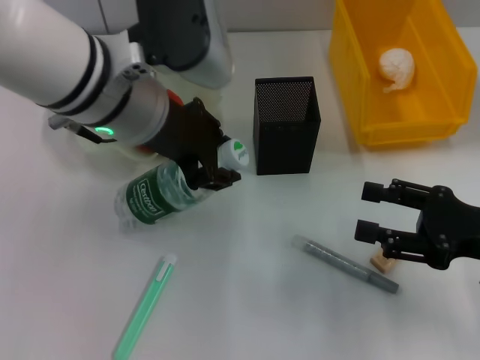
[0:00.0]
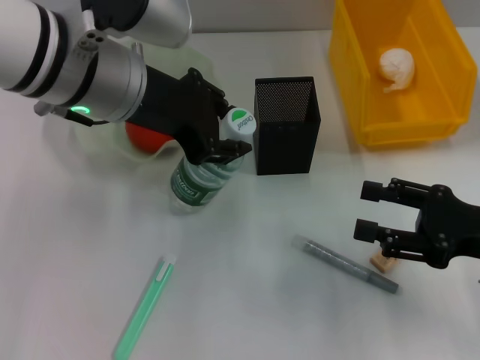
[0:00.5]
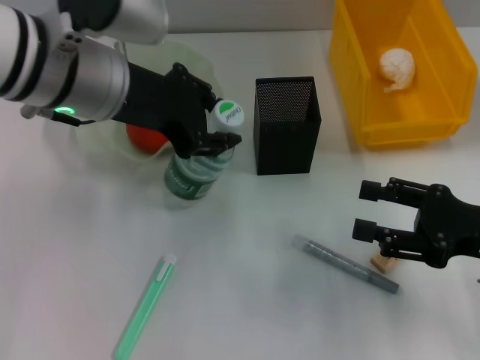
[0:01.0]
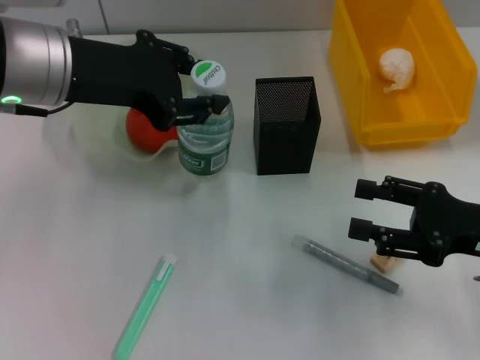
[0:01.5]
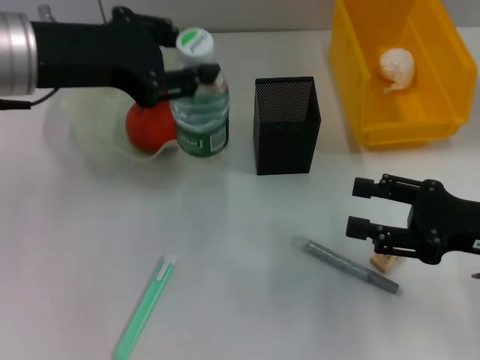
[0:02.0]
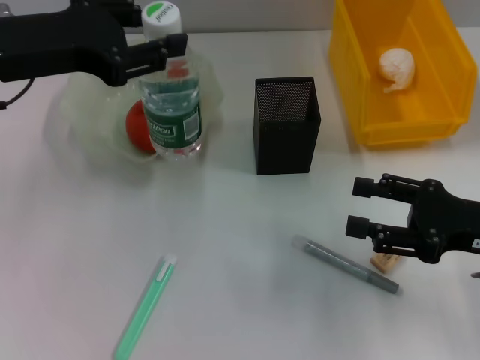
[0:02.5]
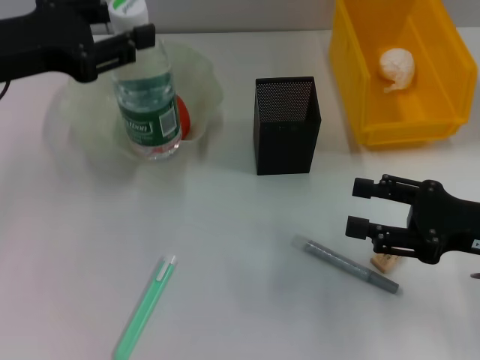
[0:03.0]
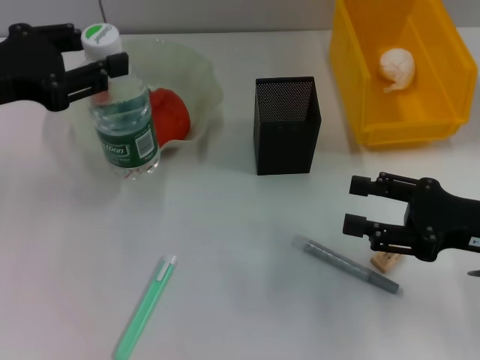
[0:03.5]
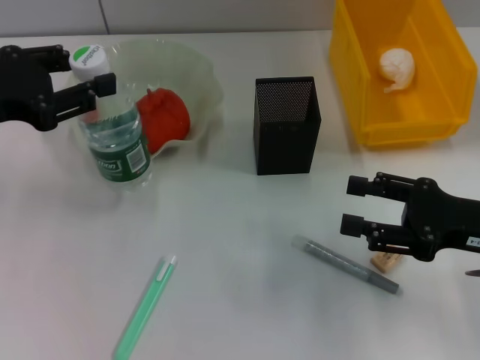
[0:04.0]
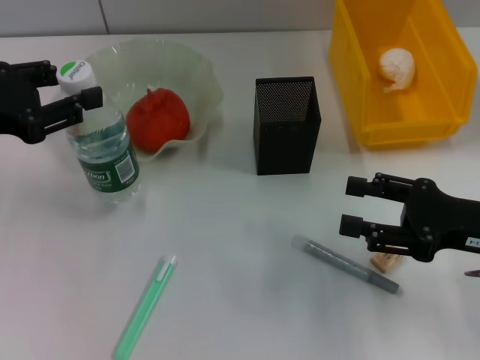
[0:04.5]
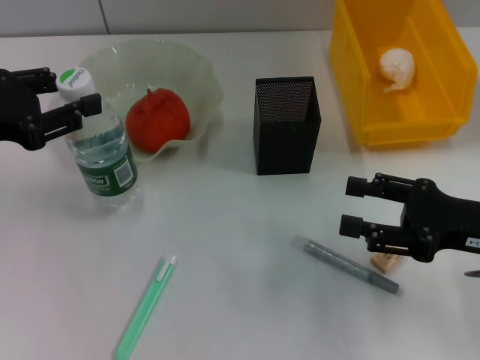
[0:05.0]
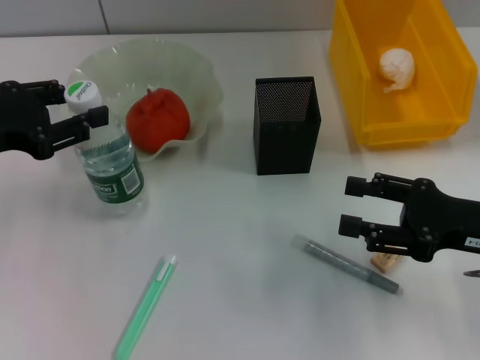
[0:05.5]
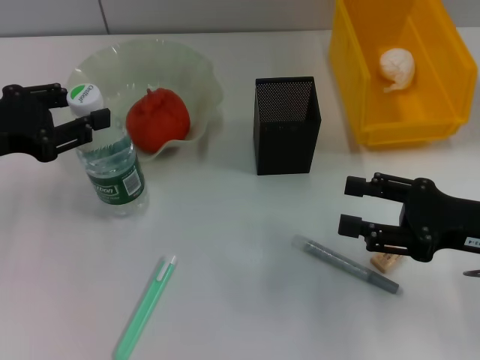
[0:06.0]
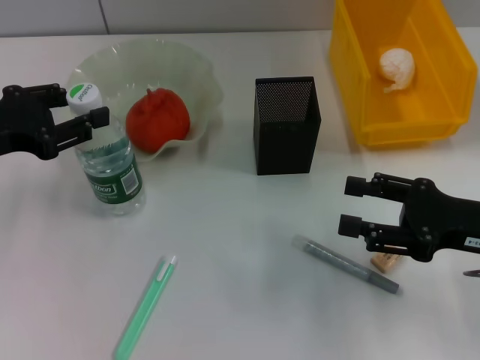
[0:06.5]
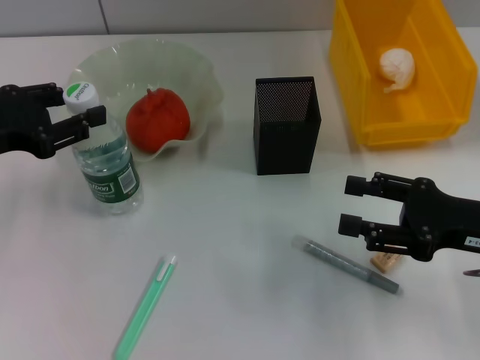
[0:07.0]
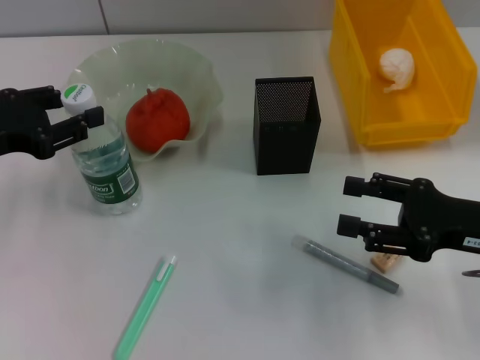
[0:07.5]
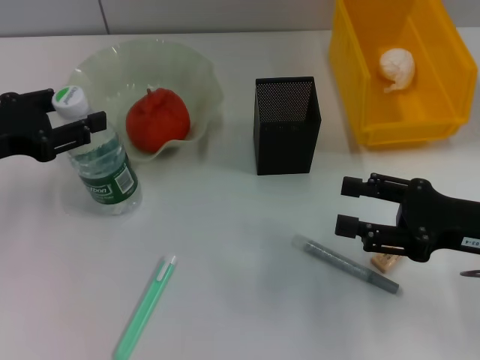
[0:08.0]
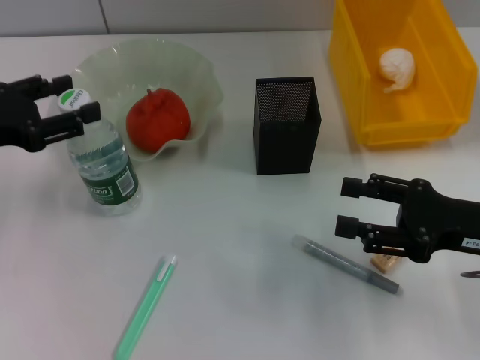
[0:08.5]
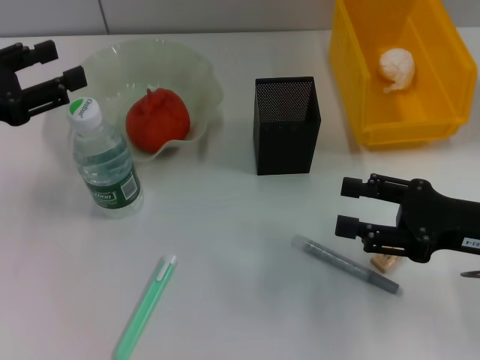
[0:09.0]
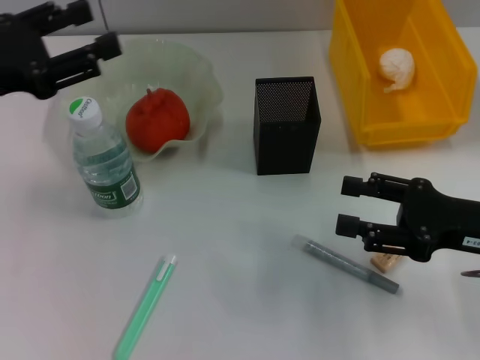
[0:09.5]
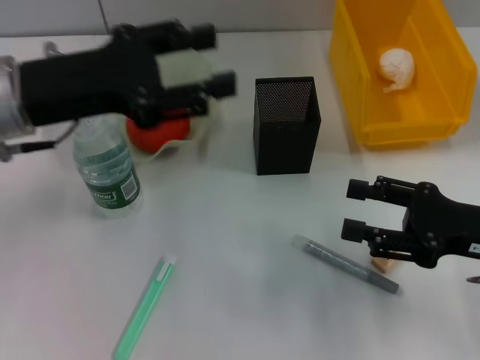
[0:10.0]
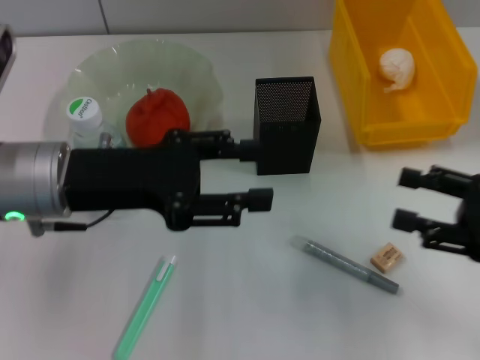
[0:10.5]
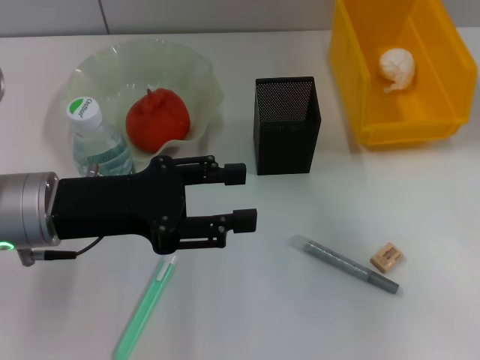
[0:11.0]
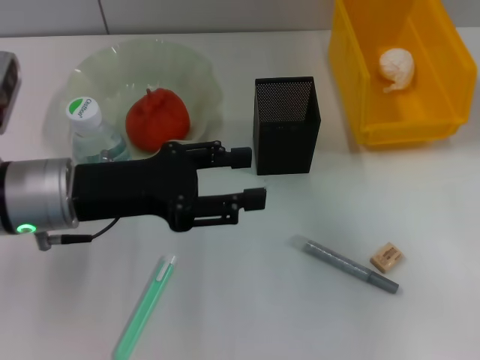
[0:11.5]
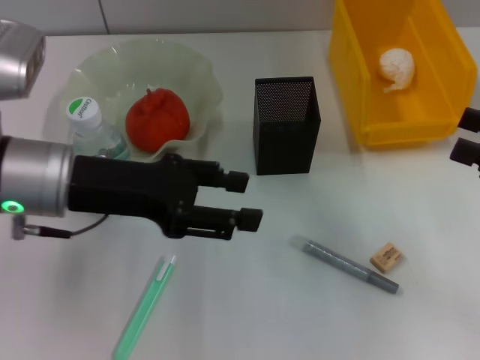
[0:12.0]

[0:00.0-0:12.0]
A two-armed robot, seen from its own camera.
Step, 0.0 to 8.5 s: Place the water bottle on the table with the left hand.
0.0 to 2.0 s: The left gripper travels to the left by about 10 cm.
2.0 to 4.0 s: The left gripper heads to the left, covering roughly 10 cm.
4.0 to 6.0 s: There are only small adjustments of the grippers.
6.0 to 8.0 s: Both grippers stay about where they are.
8.0 to 10.0 s: The left gripper heads to the right and upward, covering roughly 10 cm.
10.0 to 12.0 s: The right gripper shifts about 10 cm to the right and upward.

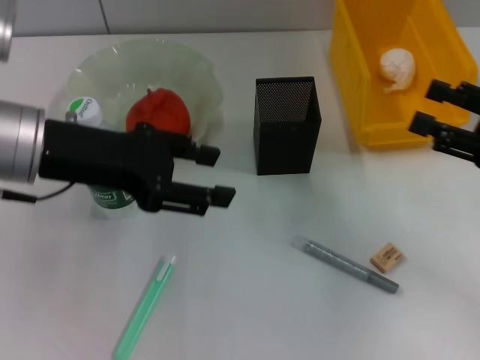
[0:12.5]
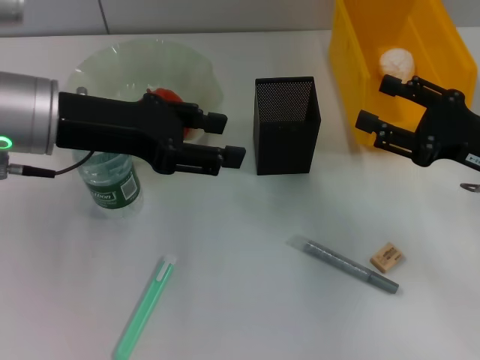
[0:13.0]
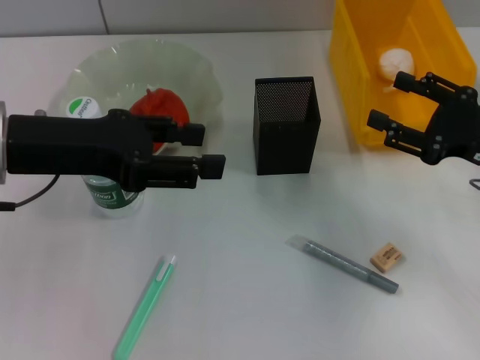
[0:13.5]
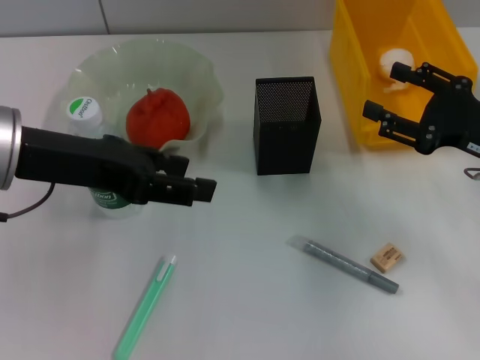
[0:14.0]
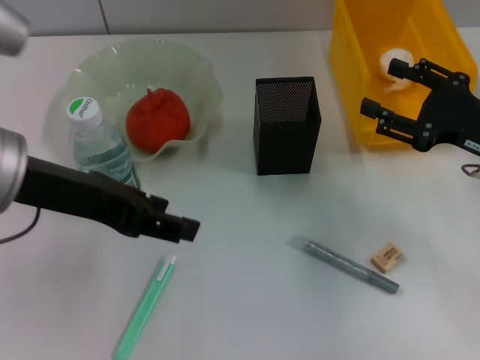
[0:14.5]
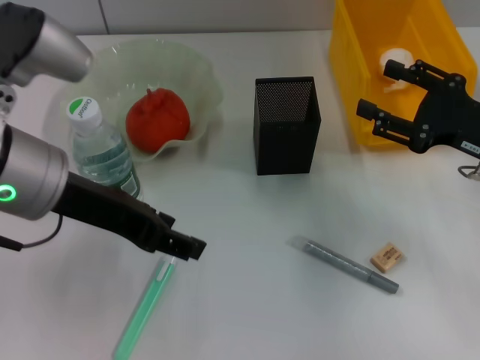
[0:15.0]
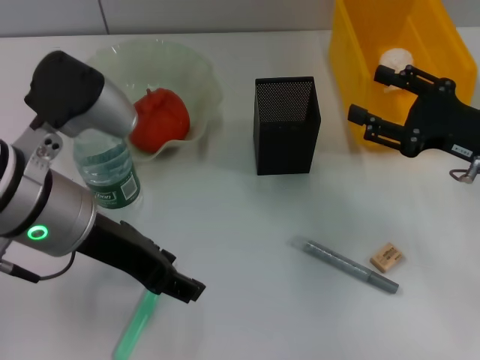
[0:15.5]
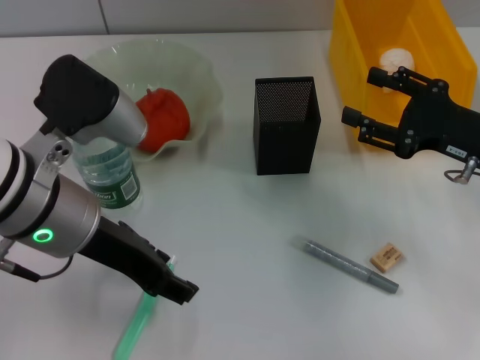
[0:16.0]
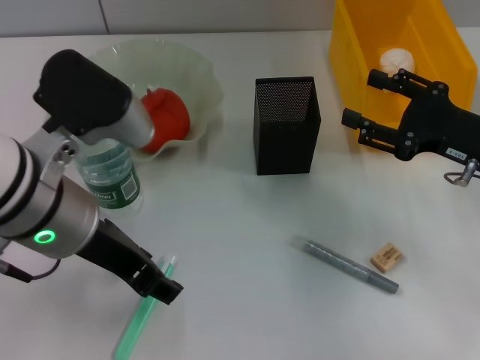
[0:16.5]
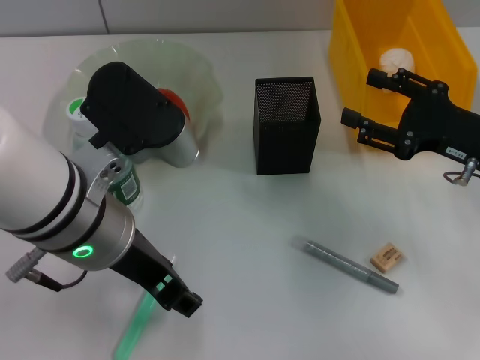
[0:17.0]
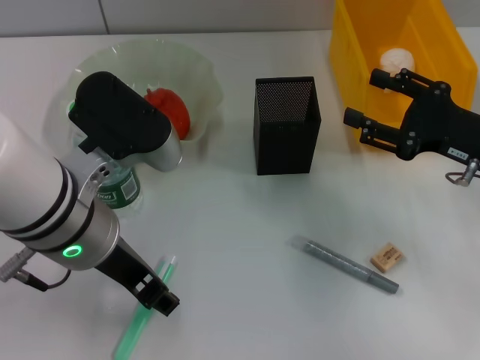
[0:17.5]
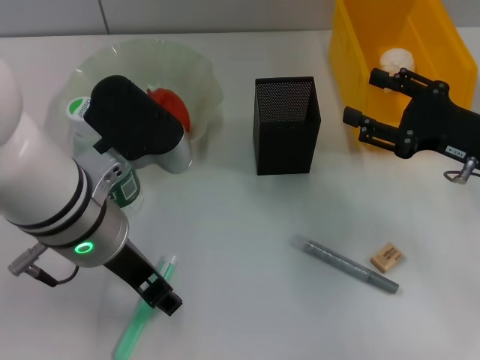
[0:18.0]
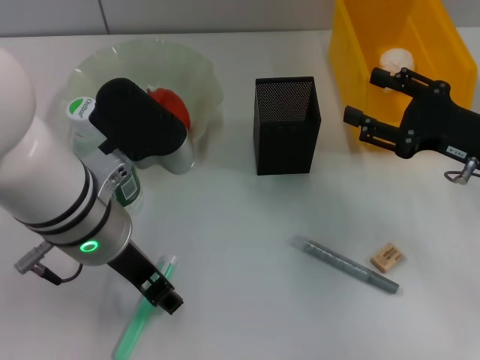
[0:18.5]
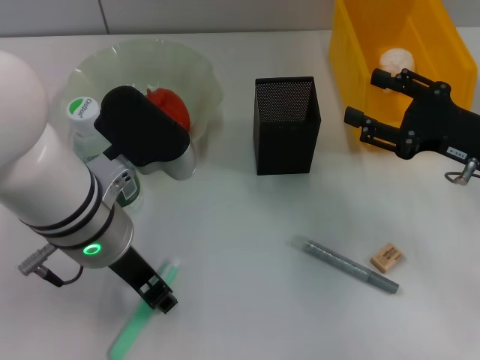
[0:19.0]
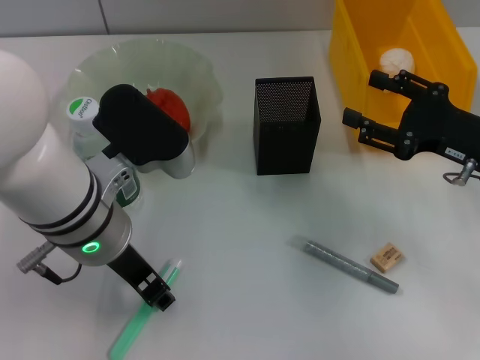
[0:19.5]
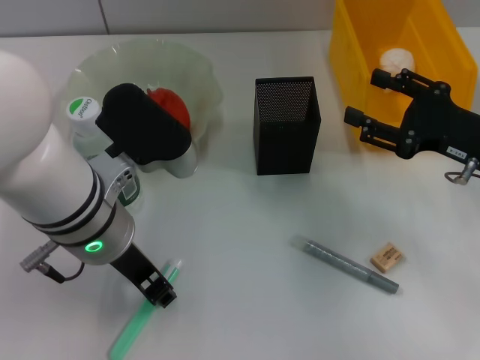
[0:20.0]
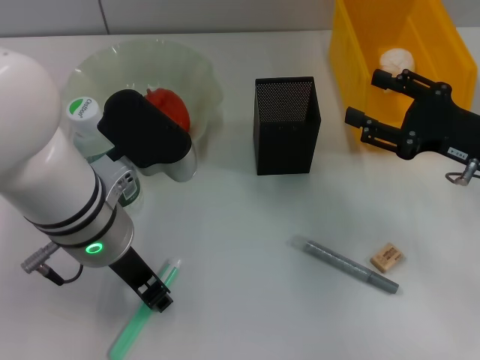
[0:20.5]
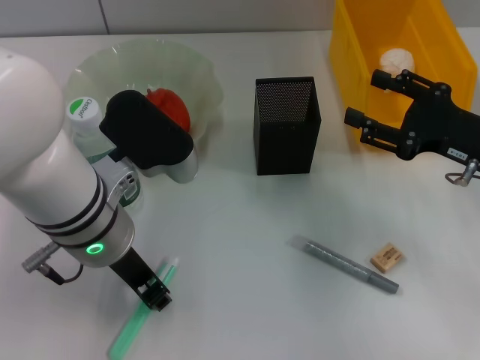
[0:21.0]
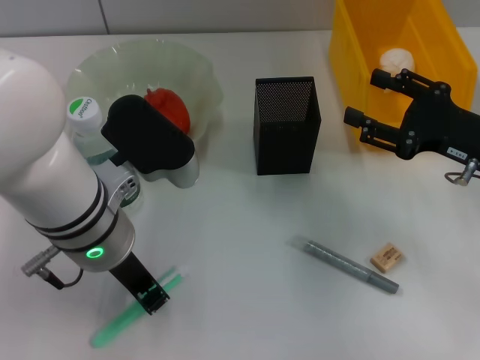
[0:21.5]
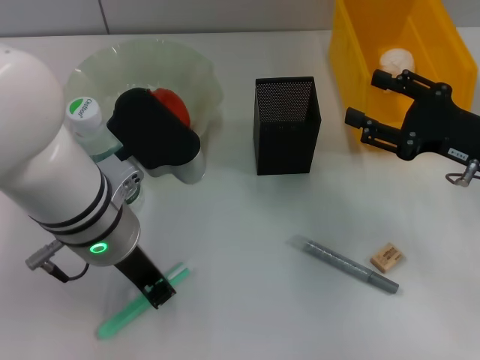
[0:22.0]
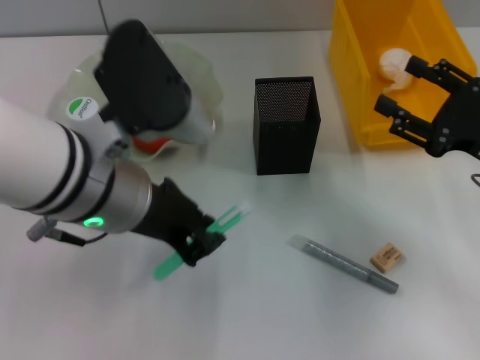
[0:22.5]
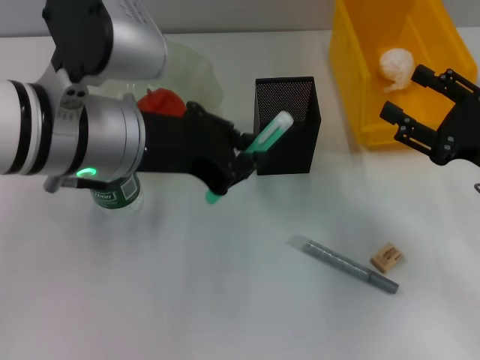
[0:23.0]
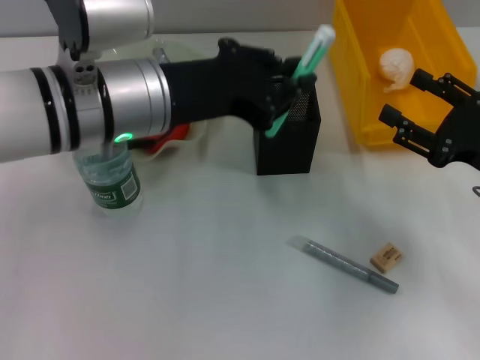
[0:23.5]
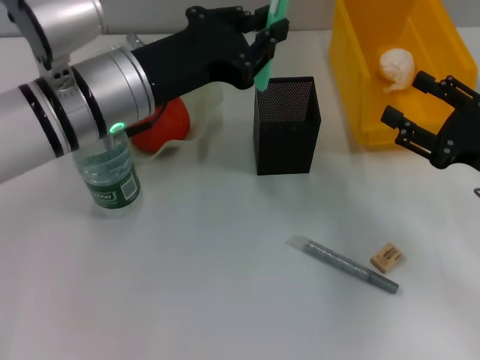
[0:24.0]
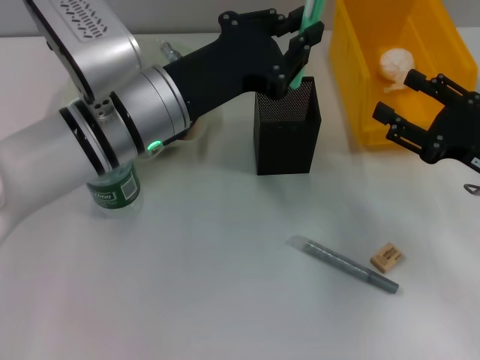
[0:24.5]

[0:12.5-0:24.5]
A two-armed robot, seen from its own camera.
Step, 12.5 to 21.5 s: Grab the blue utility knife with the left hand.
12.5 to 14.5 s: The right gripper ends up approximately 5 cm from where it was.
14.5 to 16.5 s: The left gripper moves some 5 cm.
16.5 to 20.5 s: The grippers make only small movements.
20.5 to 22.5 s: The left gripper is displaced upward by about 5 cm, and closes.
22.5 to 24.5 s: The left gripper travels forward by approximately 5 cm.

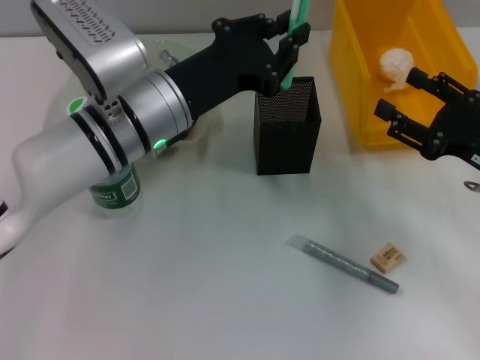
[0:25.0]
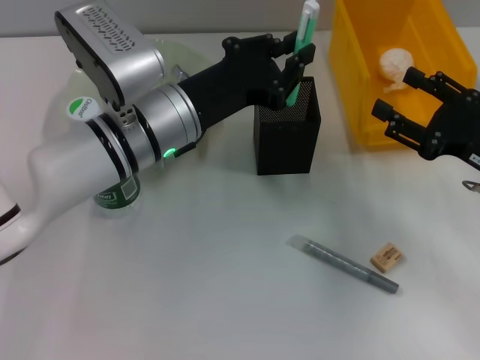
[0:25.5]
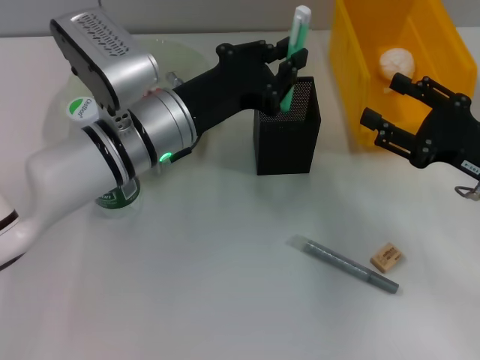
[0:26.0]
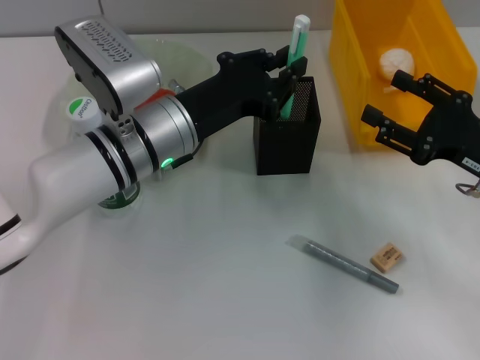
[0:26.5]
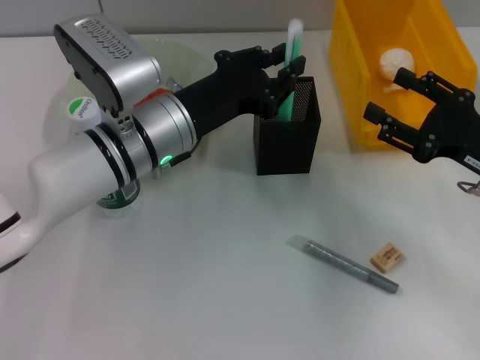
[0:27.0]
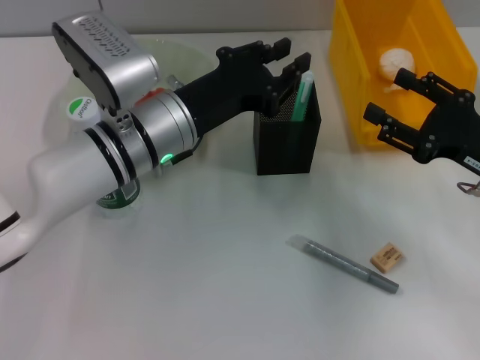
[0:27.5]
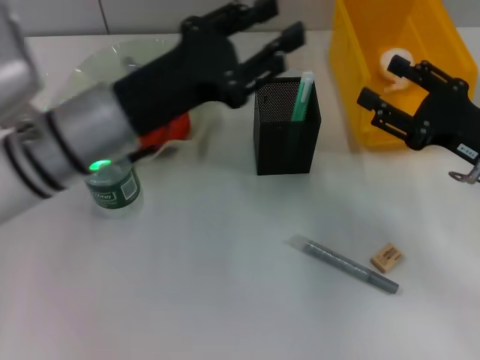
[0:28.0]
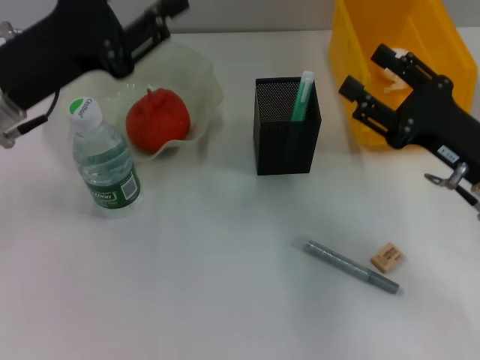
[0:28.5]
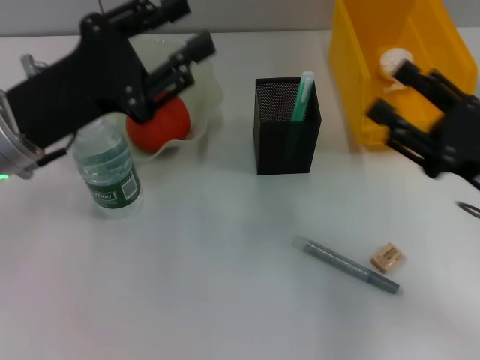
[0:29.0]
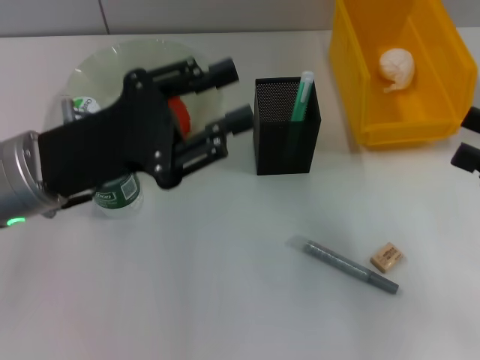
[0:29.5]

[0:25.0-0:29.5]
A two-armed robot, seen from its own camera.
Step, 25.0 to 27.0 s: Place the blue utility knife into the pen holder with the left hand.
25.0 to 27.0 s: The grippers make only small movements.
27.0 to 29.5 s: The left gripper goes approximately 10 cm to the left and backward. Meanwhile the right gripper is displaced backward, to the right and upward by roughly 10 cm.
